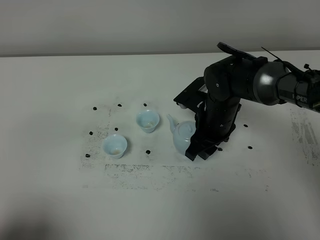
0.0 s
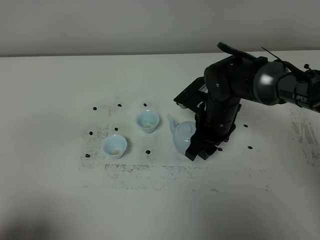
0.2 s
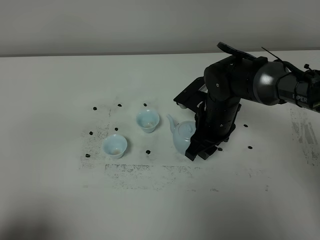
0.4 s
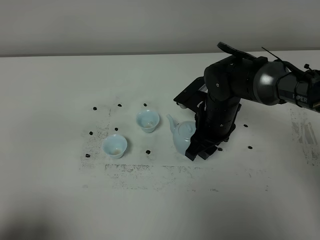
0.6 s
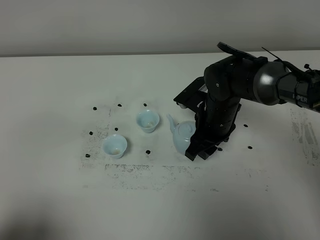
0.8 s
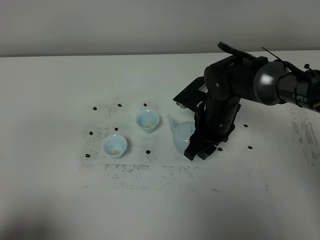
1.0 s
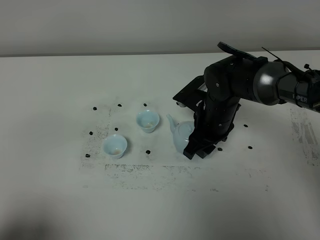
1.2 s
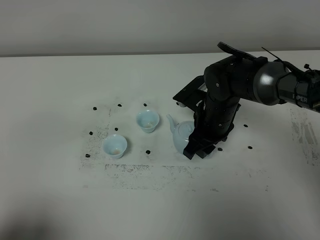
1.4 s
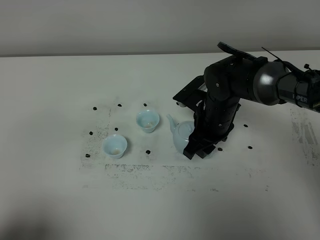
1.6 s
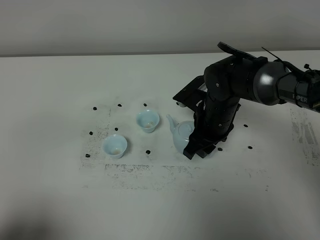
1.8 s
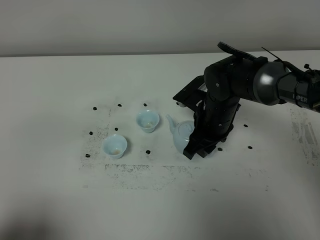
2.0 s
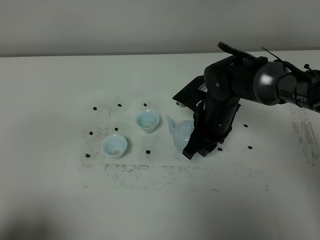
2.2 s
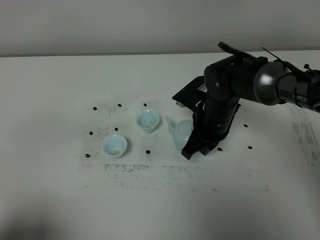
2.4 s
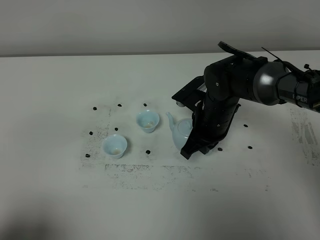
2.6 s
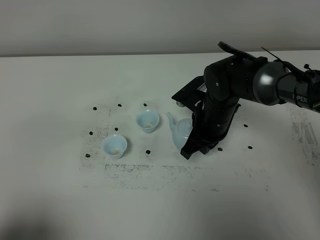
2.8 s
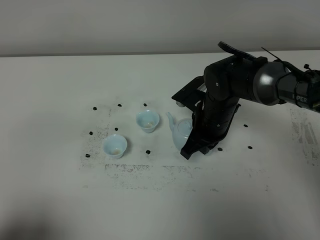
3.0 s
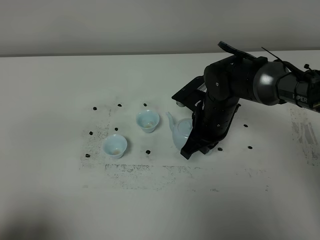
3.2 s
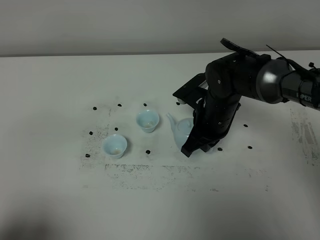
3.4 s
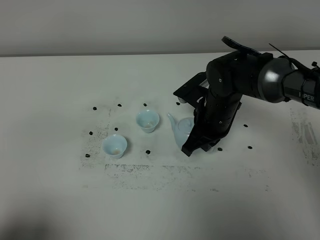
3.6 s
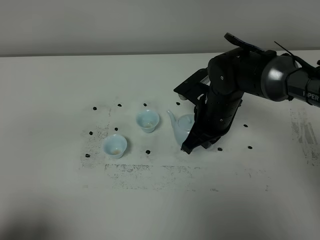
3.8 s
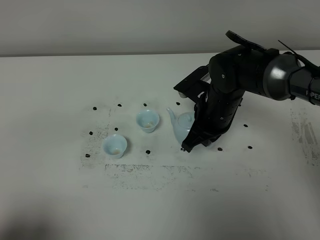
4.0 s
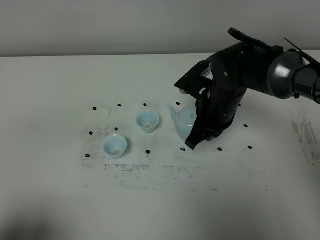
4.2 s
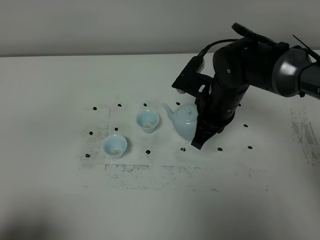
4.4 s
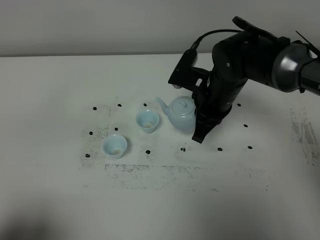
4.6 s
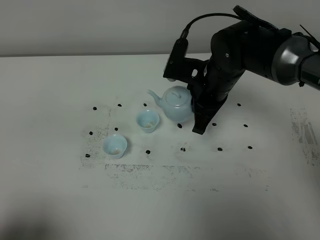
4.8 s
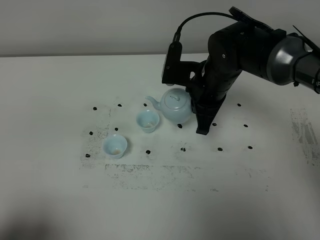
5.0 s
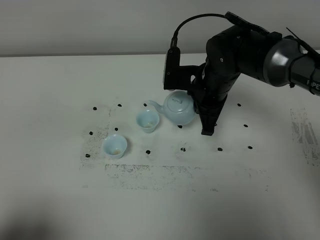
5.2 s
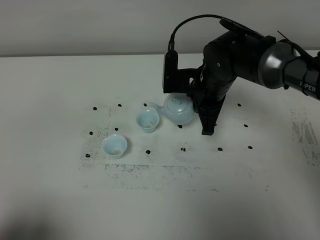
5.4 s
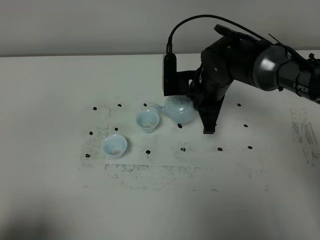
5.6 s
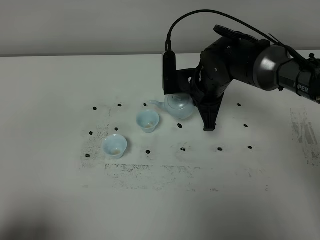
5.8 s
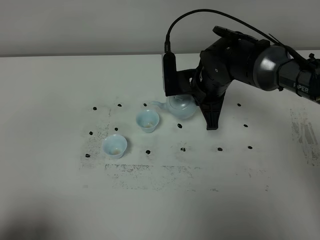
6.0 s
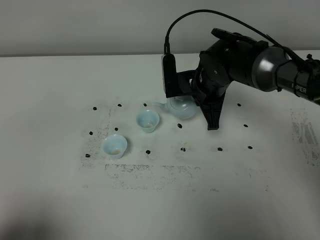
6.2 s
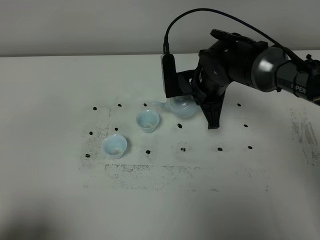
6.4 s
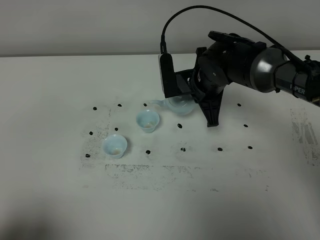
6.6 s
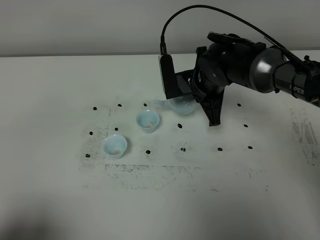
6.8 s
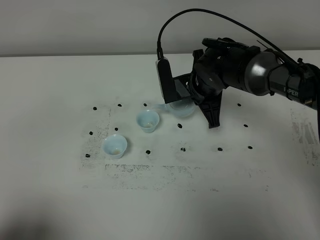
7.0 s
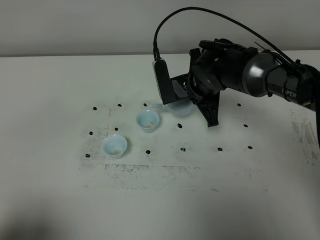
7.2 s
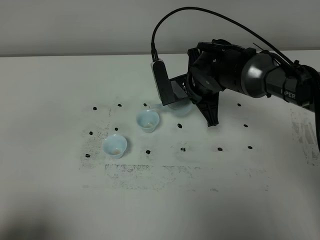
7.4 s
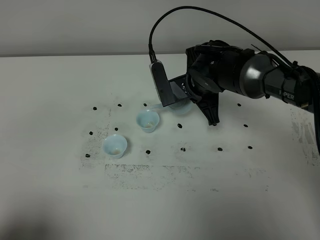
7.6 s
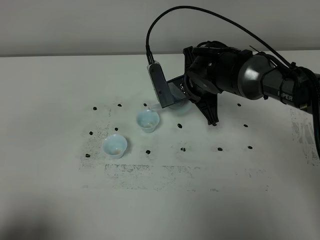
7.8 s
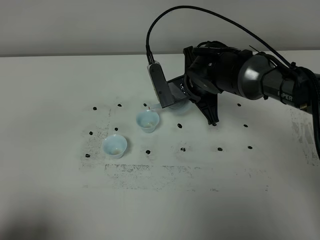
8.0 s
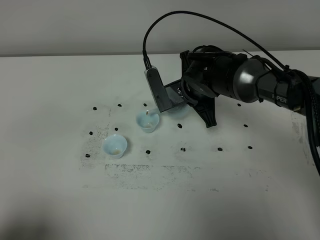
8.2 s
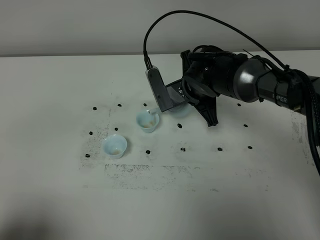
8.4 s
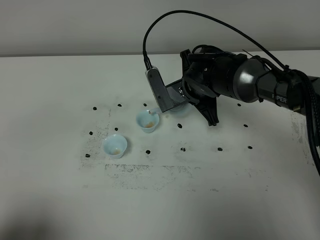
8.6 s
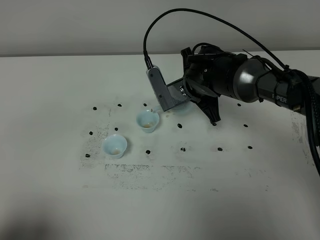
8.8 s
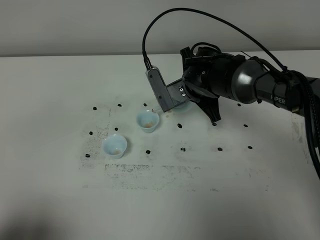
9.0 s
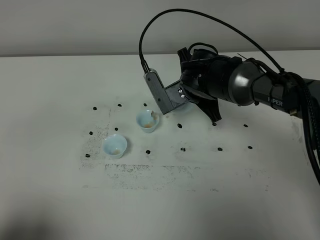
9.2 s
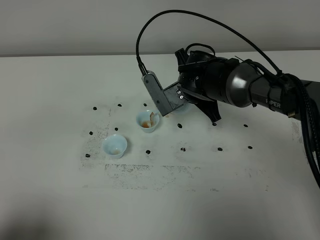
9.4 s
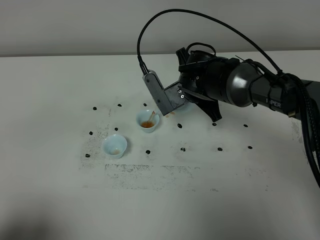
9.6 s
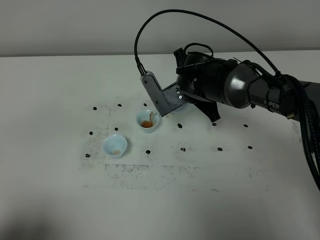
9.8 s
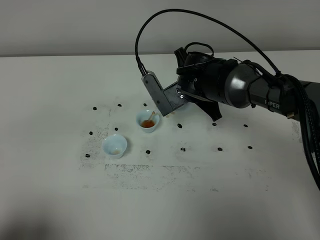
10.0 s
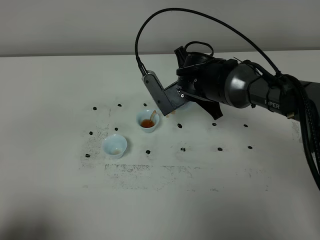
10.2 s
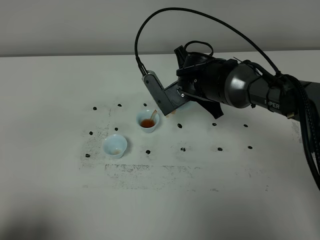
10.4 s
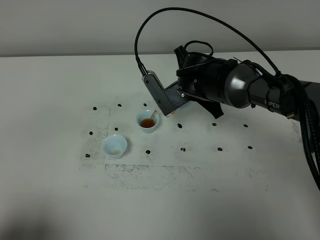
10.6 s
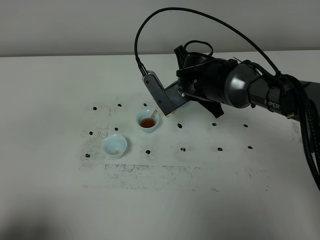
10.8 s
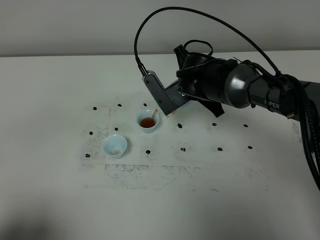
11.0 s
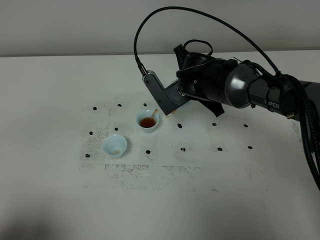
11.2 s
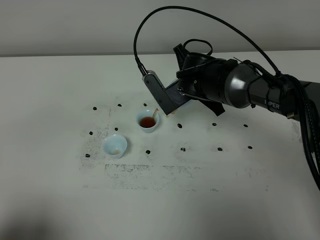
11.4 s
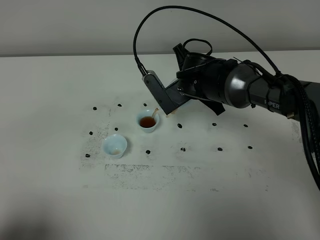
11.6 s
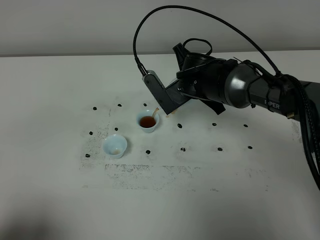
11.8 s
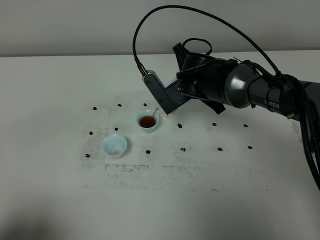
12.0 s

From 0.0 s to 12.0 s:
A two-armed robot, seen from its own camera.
Task of the whole recording: grasp the blue porcelain teapot and pour the tea into the two blue porcelain teacups one by one, put the blue porcelain teapot back in its original place.
Step, from 0.0 s to 3.8 s: Pick up the teapot with the right gripper.
From 0.0 s to 1.6 s: The two grippers keep their place.
From 1.6 s to 3.0 s: The right gripper closes.
From 3.0 s to 4.4 s: The grippers make only small movements.
From 6.0 s to 7.6 s: The grippers make only small movements.
From 7.6 s to 10.4 s: There are only small adjustments of the grippers.
From 10.4 s to 12.0 s: The two grippers keep their place.

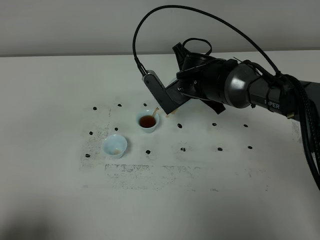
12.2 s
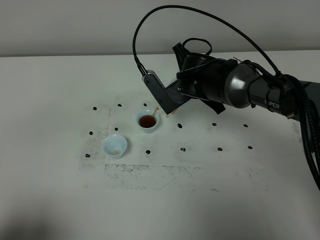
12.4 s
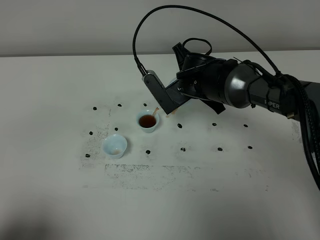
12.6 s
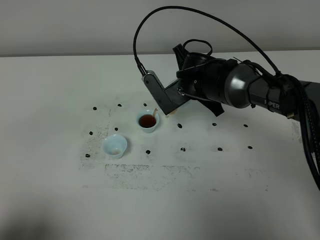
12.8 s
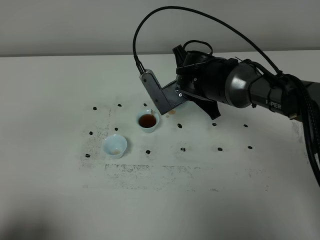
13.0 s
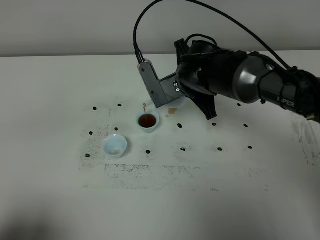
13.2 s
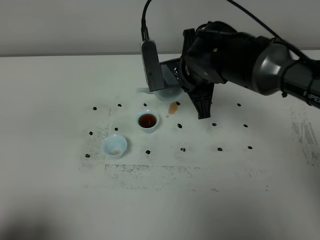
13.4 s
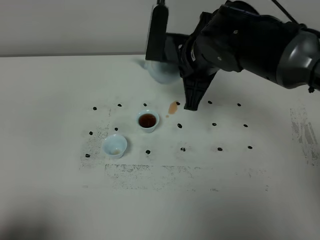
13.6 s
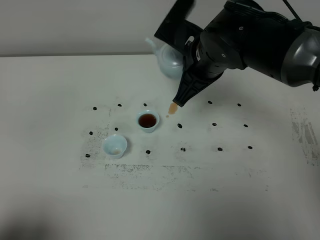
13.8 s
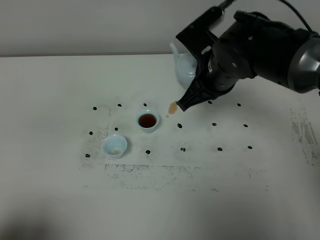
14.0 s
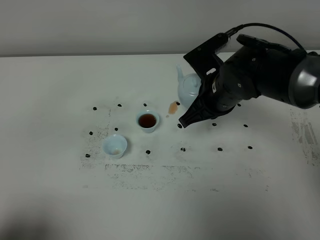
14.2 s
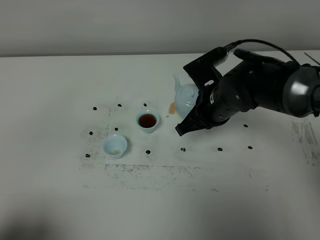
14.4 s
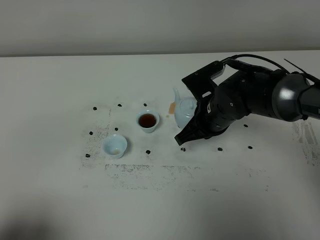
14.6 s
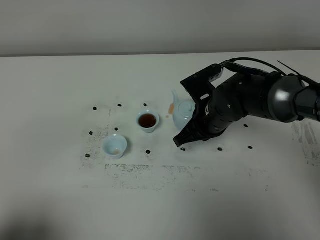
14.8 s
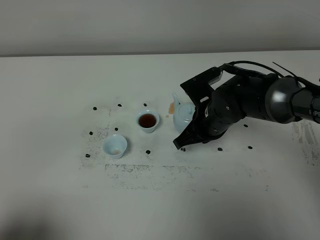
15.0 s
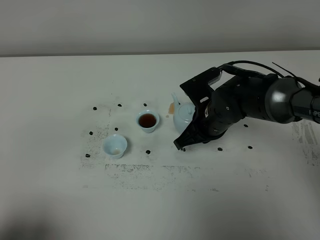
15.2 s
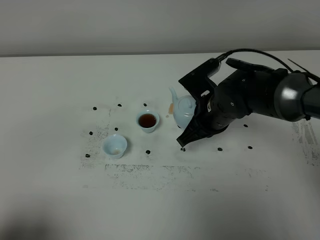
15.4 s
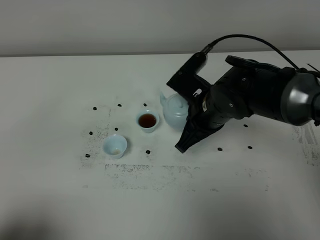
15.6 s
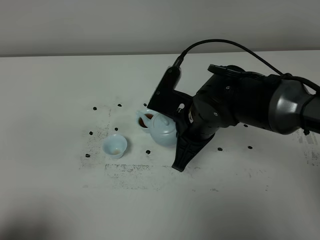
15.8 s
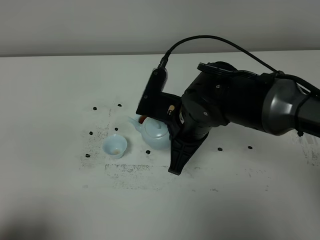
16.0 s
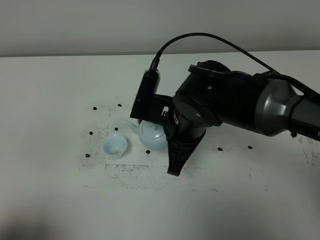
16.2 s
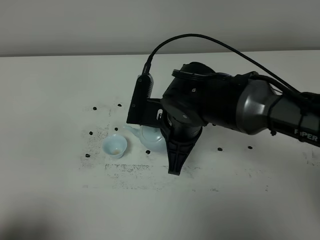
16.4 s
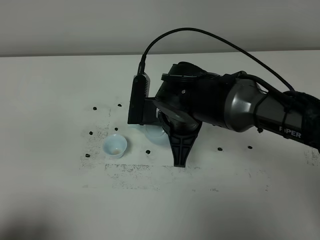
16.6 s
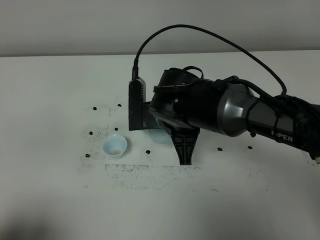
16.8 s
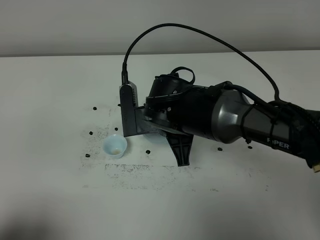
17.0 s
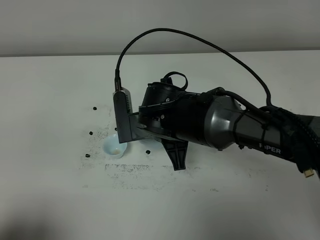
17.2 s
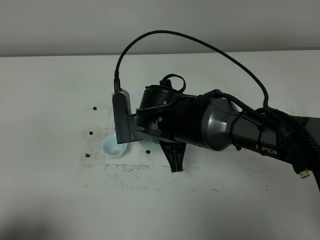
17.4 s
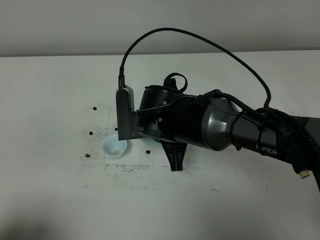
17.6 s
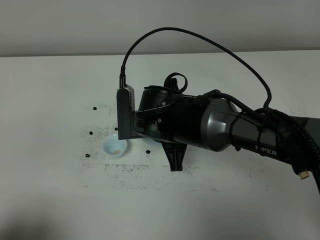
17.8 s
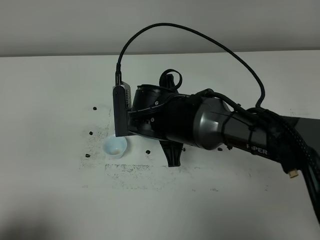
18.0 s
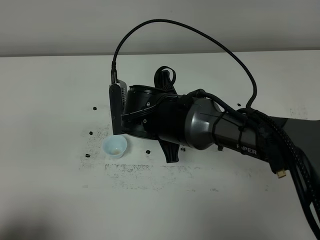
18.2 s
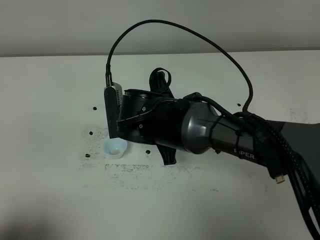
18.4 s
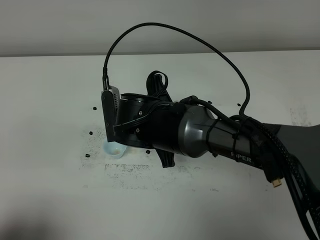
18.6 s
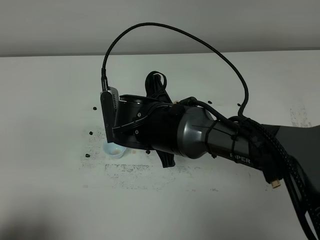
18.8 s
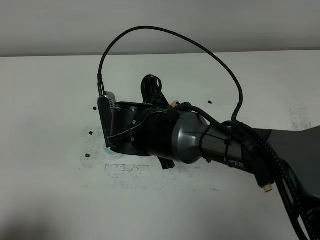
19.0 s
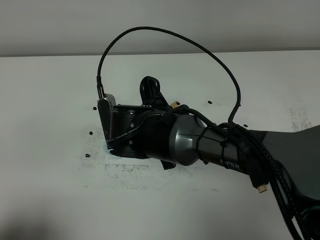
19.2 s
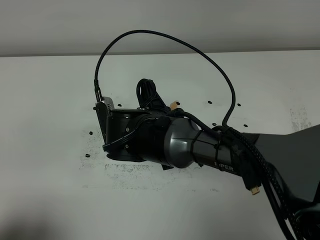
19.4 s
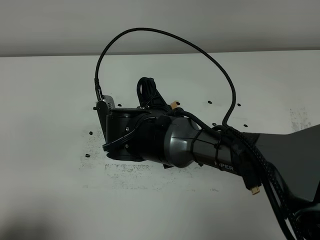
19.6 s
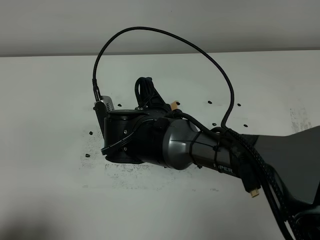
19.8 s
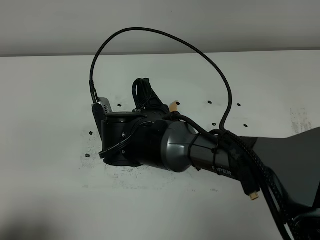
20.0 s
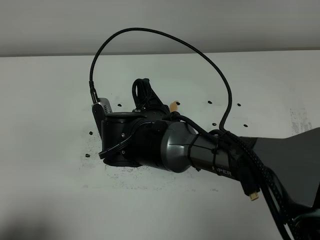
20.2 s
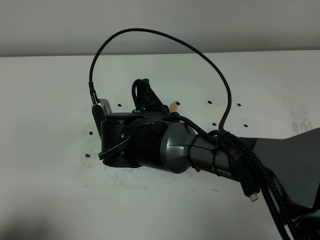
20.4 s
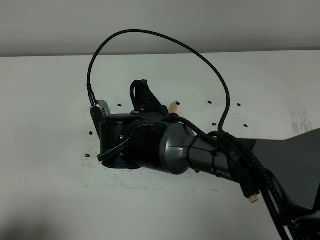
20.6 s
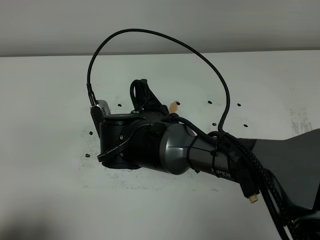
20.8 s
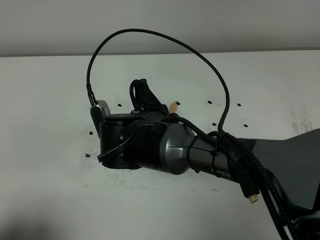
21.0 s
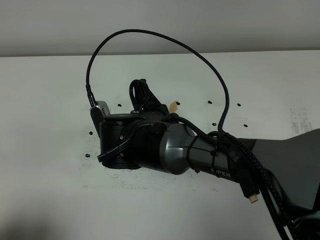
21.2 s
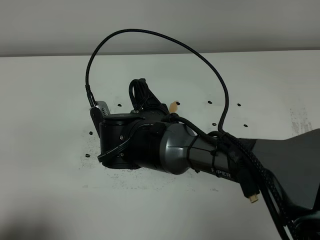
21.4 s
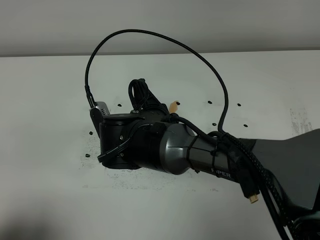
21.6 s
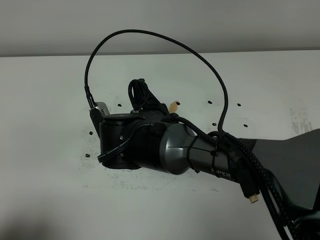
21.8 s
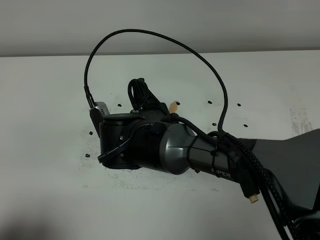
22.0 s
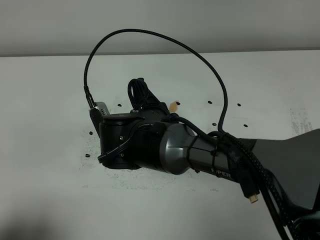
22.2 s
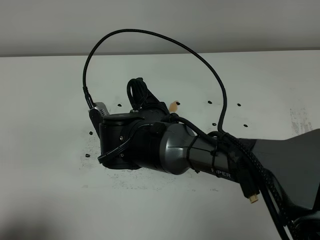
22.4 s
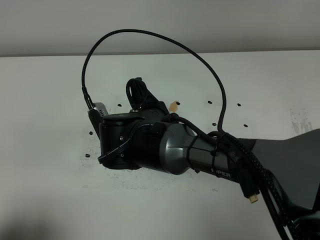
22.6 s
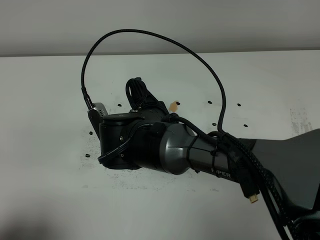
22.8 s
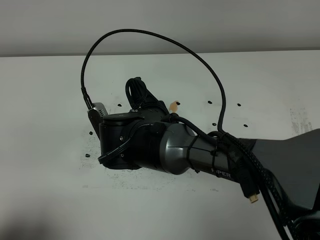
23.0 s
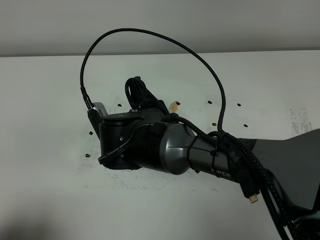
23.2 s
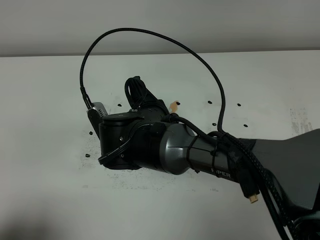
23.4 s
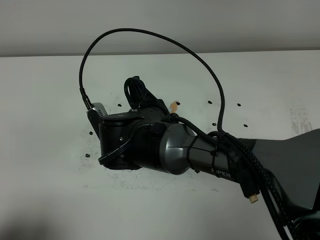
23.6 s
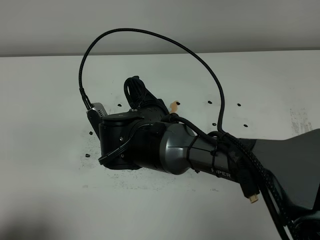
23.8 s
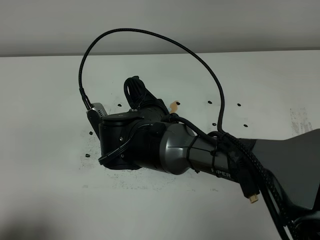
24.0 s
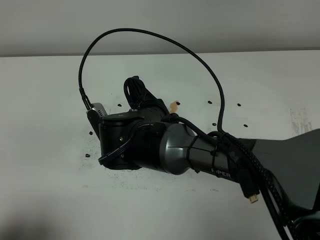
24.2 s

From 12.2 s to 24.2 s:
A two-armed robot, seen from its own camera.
Task of the whole recording: grasp the blue porcelain teapot and pour the tea into the two blue porcelain teacups one by one, put the blue porcelain teapot back in its original place.
From 12.2 s to 13.8 s: The right gripper shifts about 10 cm upward and backward.
From 13.8 s to 15.2 s: The right gripper goes some 15 cm downward.
From 15.2 s to 16.6 s: The right gripper shifts about 10 cm to the left and upward.
From 19.8 s to 21.2 s: Both grippers stay put.
From 21.2 s to 22.6 s: The two grippers keep their place.
From 22.6 s to 24.2 s: Neither gripper changes place.
